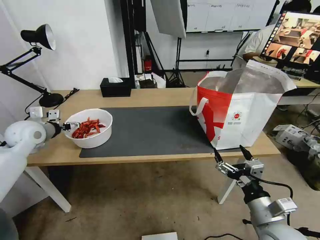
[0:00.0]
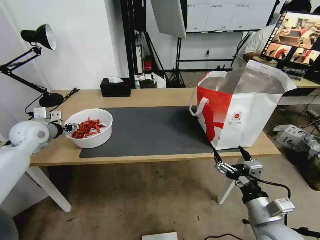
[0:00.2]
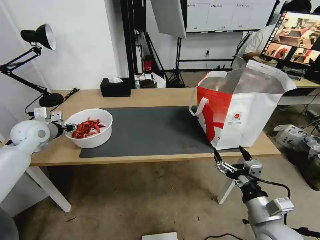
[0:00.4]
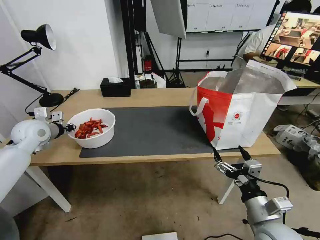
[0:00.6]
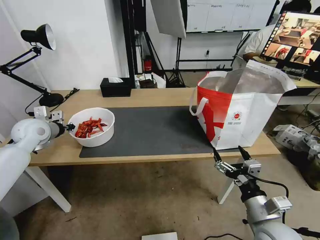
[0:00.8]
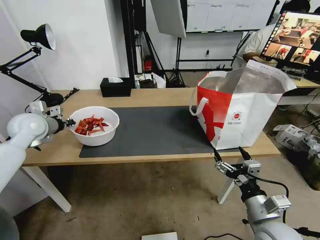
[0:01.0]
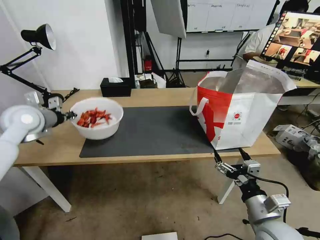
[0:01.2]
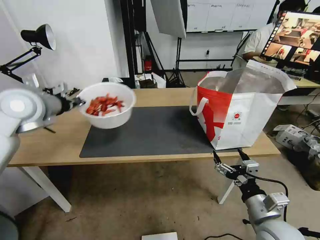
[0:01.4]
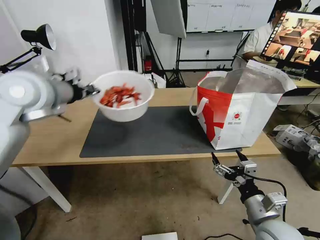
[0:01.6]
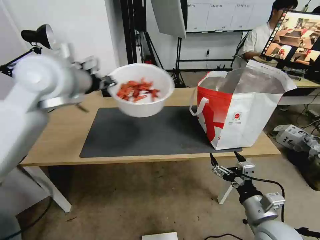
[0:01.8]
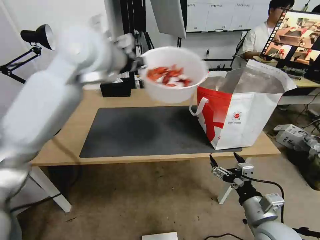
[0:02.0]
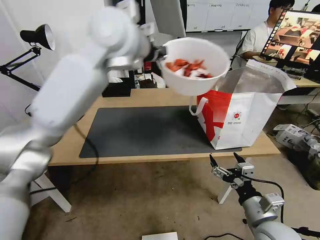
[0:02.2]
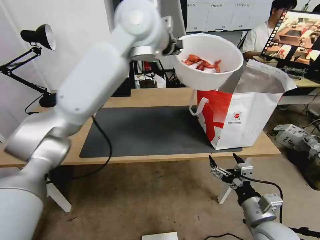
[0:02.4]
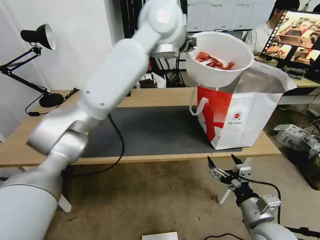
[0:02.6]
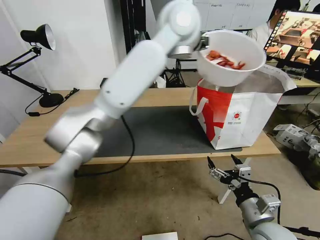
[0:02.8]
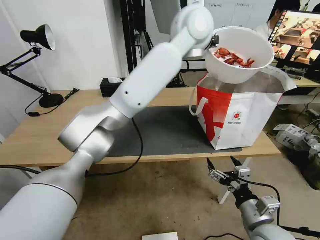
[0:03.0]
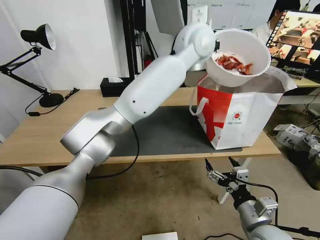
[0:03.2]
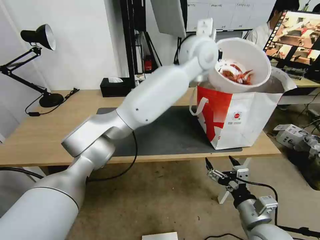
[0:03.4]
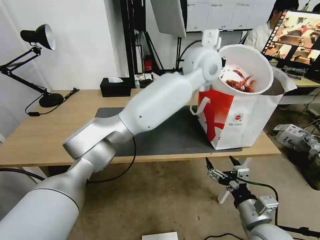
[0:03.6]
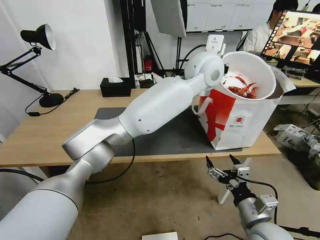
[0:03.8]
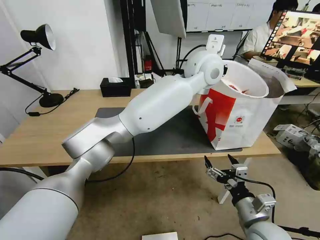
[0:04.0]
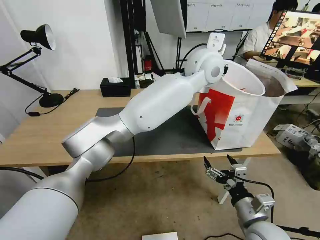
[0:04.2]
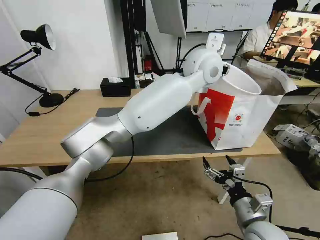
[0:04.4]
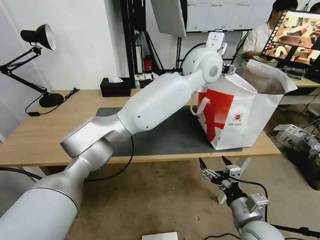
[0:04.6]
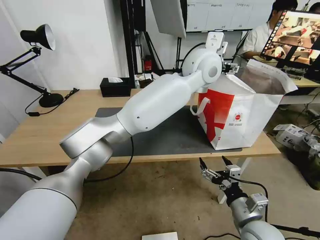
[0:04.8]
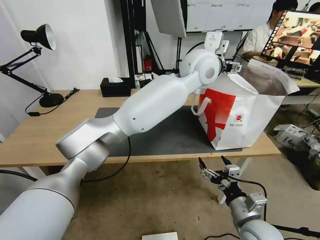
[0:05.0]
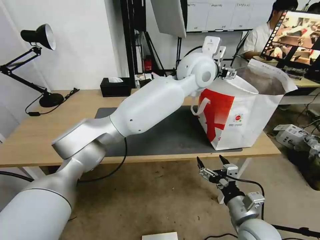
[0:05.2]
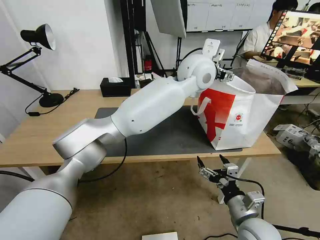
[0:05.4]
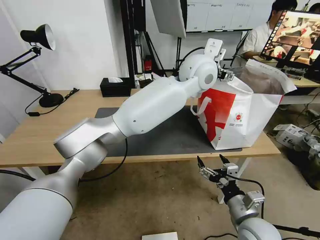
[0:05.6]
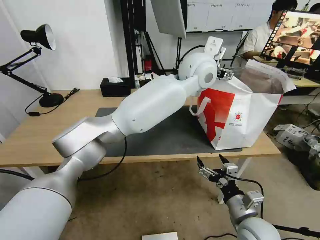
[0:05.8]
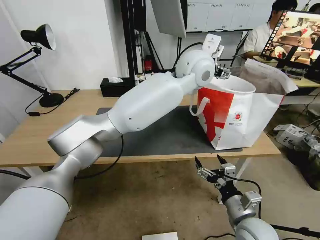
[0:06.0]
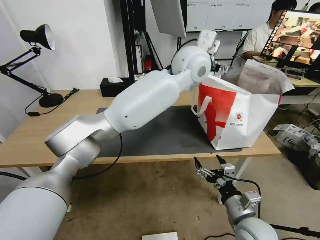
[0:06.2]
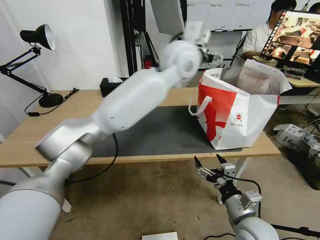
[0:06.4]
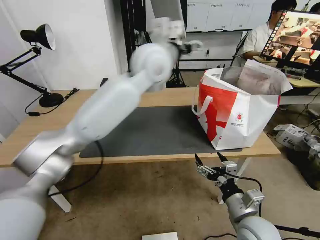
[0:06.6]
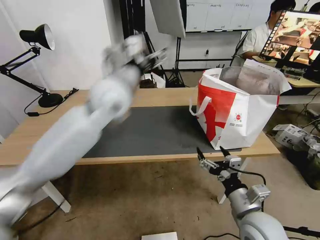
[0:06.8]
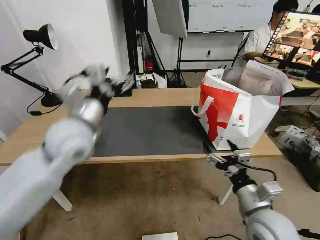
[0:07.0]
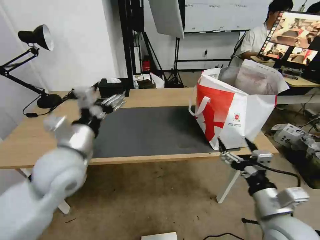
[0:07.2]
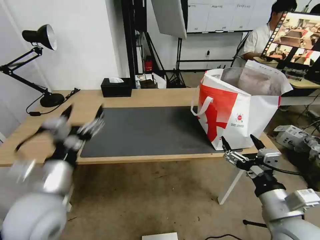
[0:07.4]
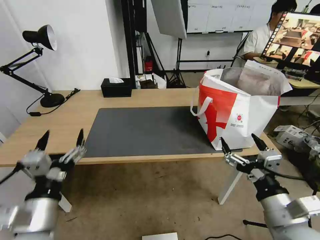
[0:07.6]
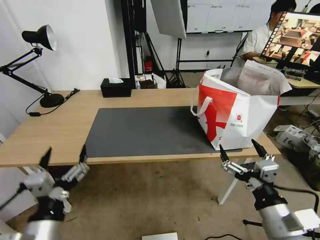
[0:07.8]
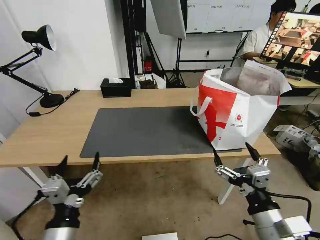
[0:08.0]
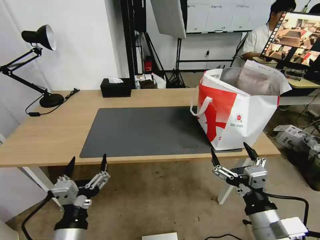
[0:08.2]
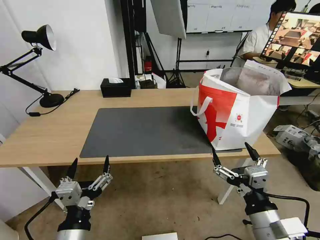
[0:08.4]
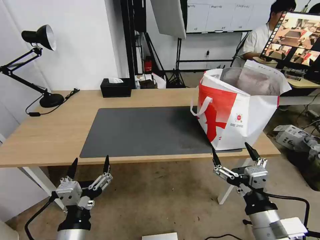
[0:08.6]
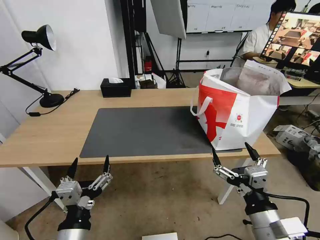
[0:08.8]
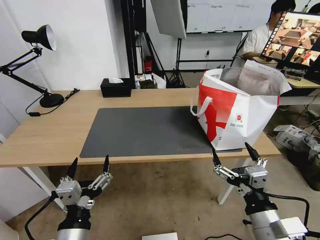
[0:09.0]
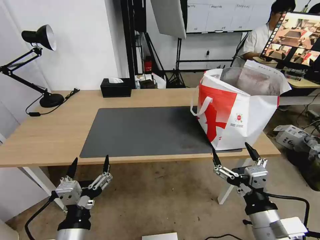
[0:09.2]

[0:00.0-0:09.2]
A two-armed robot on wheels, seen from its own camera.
Task of the whole recording: Pick up the trash from the table and place it into the takeout bag.
0:00.0 to 0:01.6: The left gripper goes about 20 cm upward and to the right, and closes up.
0:01.6 to 0:03.0: The left gripper is displaced to the right by some 35 cm.
0:03.0 to 0:04.6: The left gripper shifts some 10 cm downward, and opens its fingers.
0:04.6 to 0:06.2: There are only small adjustments of the grippers.
0:06.2 to 0:07.6: The left gripper moves backward, to the left and downward, about 50 cm, while the right gripper goes about 10 cm upward.
0:07.6 to 0:09.2: The left gripper heads to the right and backward, covering about 10 cm.

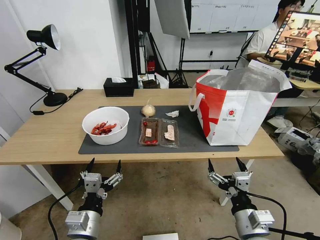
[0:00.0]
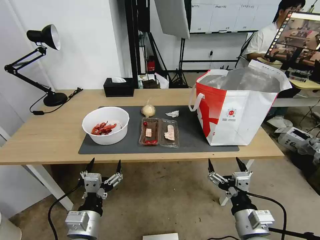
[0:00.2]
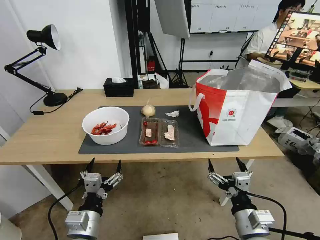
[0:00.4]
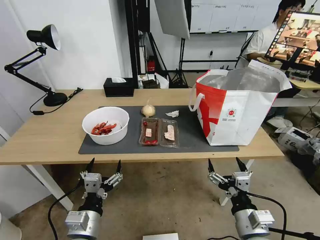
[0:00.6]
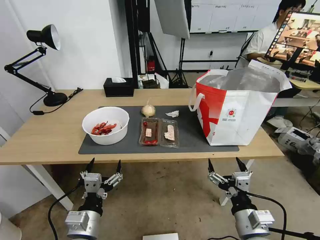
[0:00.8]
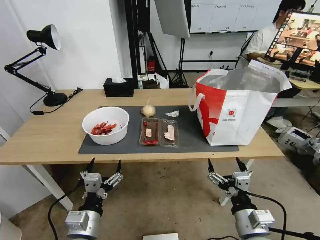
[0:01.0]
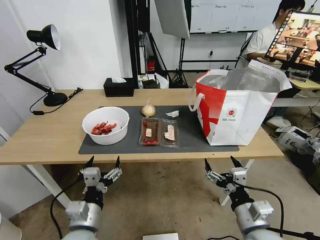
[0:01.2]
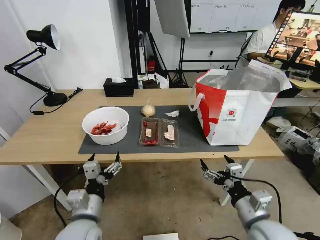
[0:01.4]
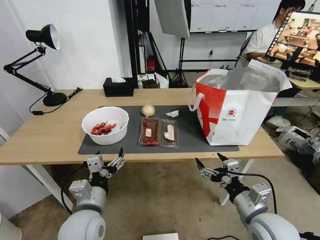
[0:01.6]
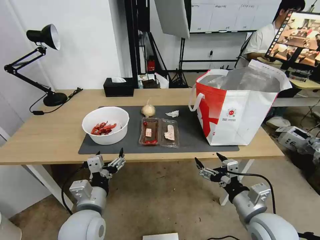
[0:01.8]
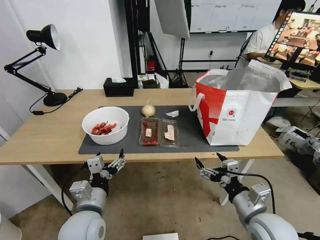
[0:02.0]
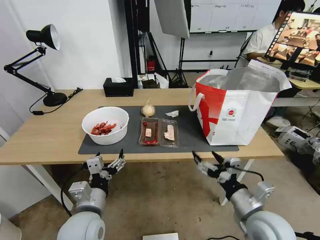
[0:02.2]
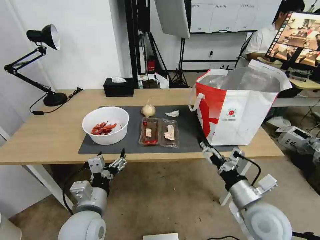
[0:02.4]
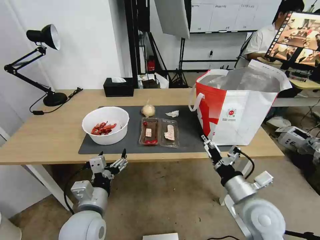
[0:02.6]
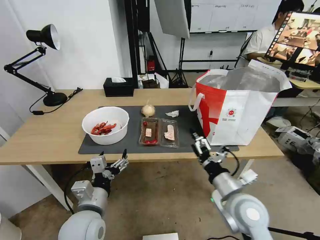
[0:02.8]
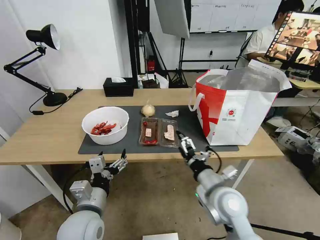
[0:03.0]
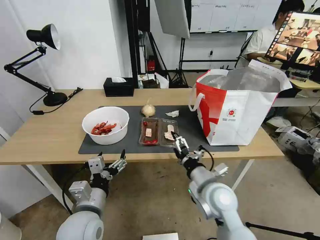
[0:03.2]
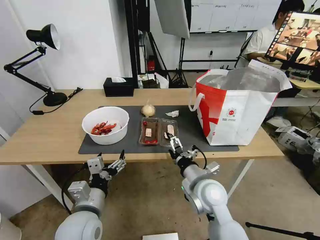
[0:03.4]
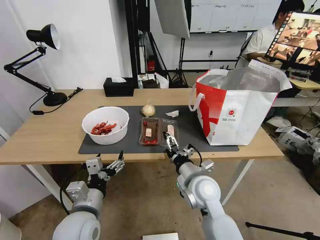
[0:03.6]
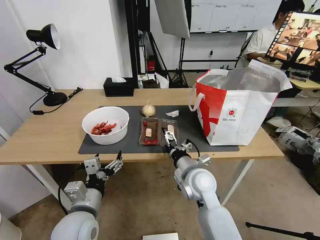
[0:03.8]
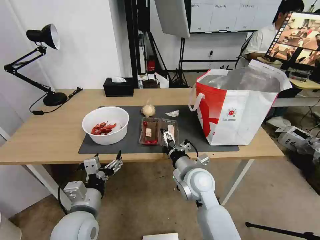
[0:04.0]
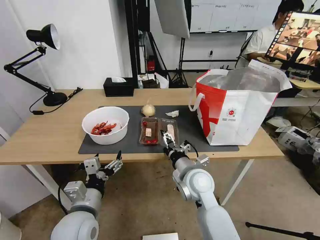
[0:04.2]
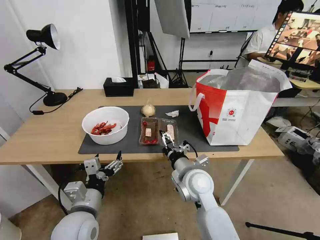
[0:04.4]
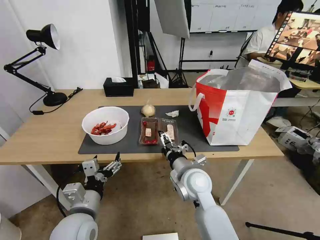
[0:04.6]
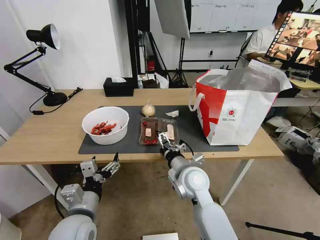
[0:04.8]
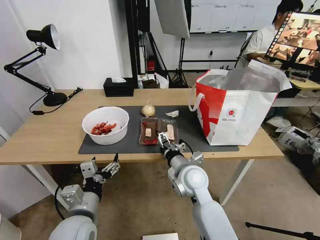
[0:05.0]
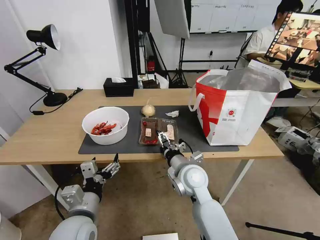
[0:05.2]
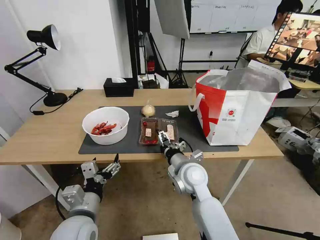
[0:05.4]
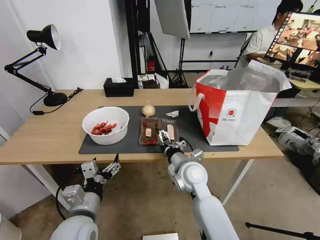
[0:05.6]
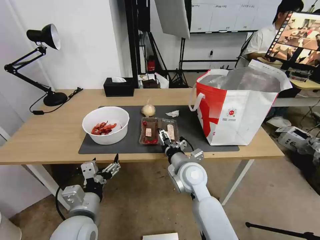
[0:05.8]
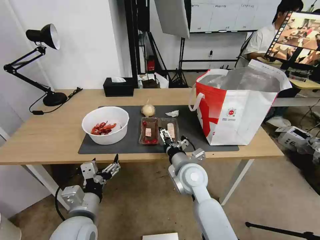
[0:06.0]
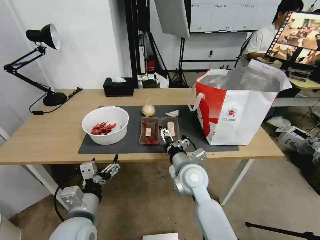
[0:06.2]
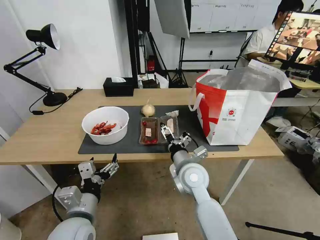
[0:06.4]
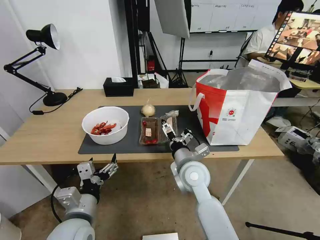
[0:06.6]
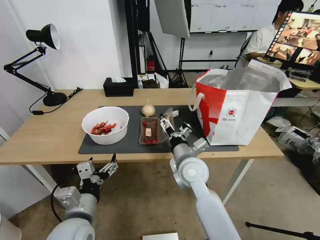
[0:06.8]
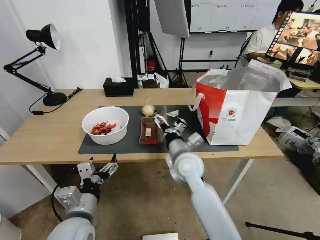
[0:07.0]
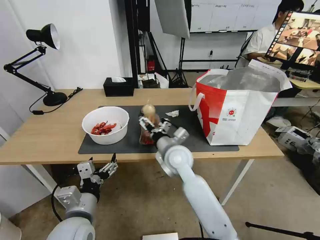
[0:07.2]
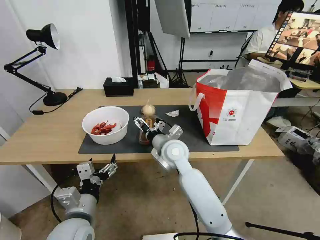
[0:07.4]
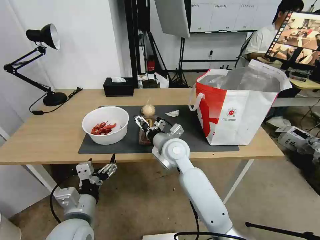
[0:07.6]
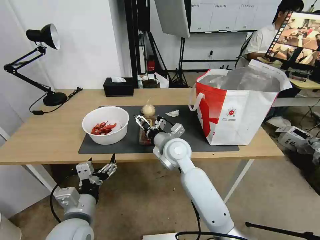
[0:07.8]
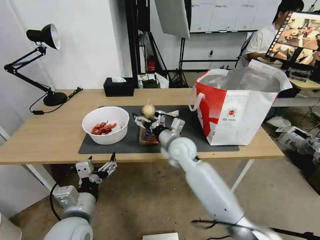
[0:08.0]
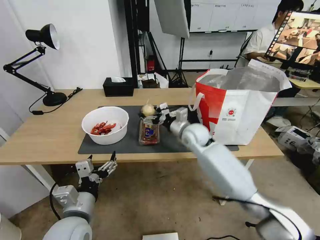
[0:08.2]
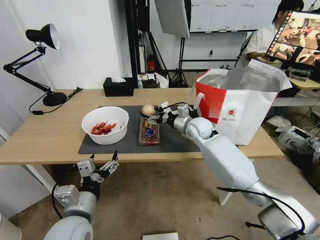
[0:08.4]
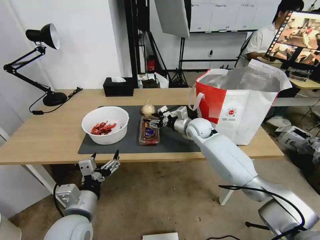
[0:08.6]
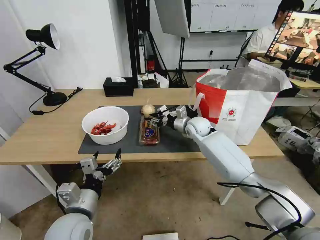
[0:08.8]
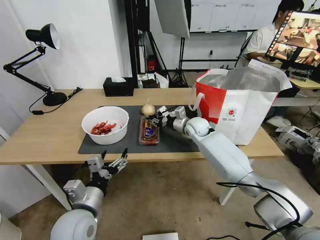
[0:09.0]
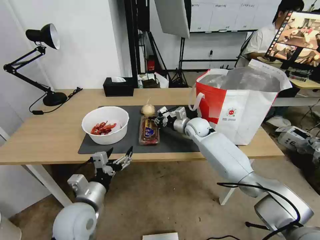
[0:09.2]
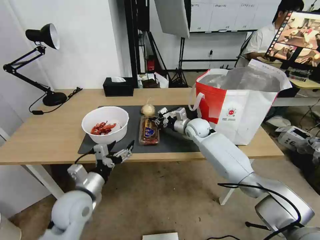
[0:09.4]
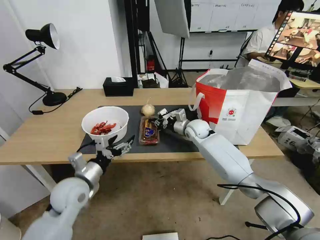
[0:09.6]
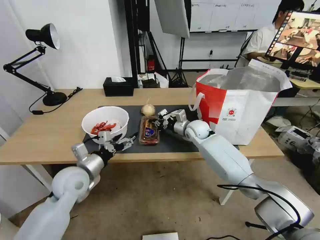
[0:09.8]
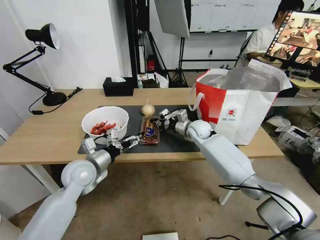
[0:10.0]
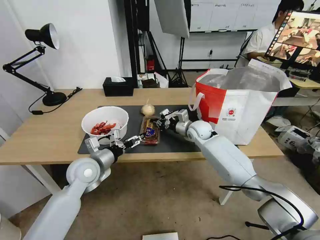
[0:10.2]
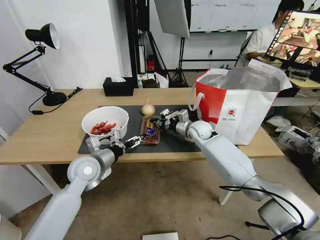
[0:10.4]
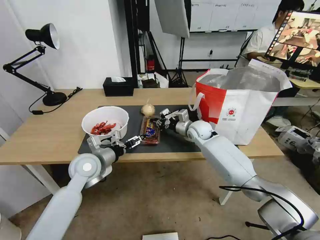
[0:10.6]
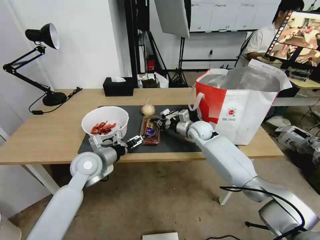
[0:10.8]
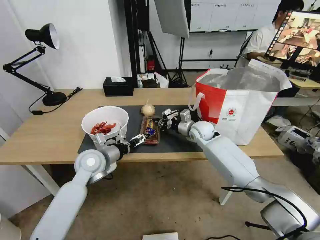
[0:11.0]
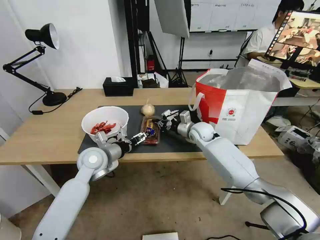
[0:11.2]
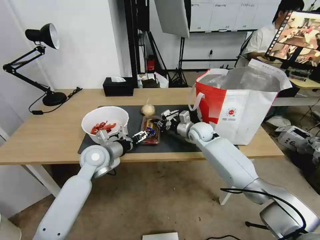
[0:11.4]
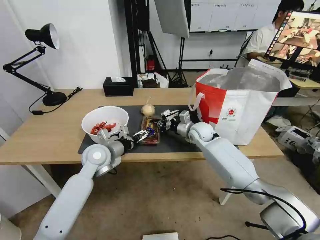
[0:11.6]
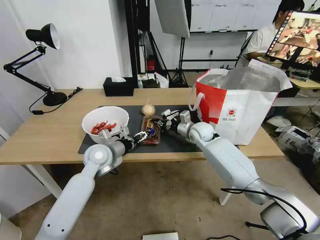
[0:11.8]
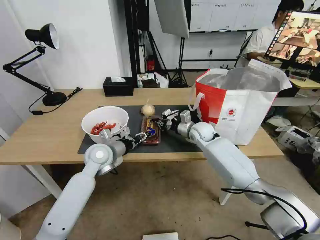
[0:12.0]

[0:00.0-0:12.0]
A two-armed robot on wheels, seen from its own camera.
Task of the whole recording: Pick up the trash from the table and place it into the takeout bag.
0:01.6 to 0:03.0: The right gripper moves to the left and forward, approximately 10 cm.
0:03.0 to 0:04.4: The right gripper shifts about 10 cm to the left and forward.
0:04.4 to 0:06.0: The grippers make only small movements.
0:06.0 to 0:07.6: The right gripper is displaced forward and to the left by about 10 cm.
0:07.6 to 0:09.0: The right gripper moves forward and to the right, some 20 cm, and closes its fingers.
0:09.0 to 0:10.4: The left gripper shifts some 15 cm forward.
0:10.4 to 0:12.0: The left gripper is displaced forward by some 5 cm, and closes up.

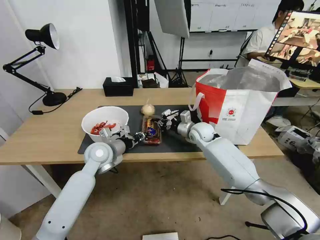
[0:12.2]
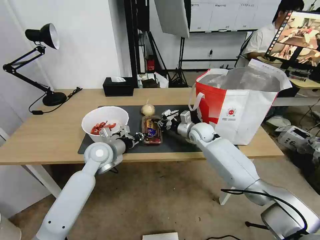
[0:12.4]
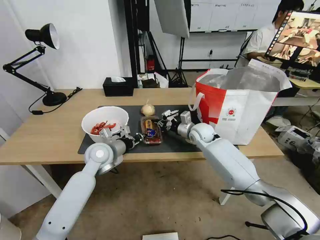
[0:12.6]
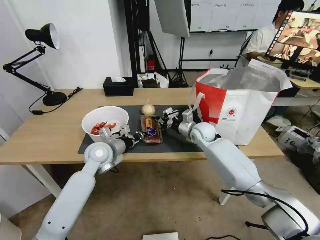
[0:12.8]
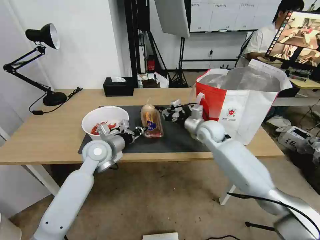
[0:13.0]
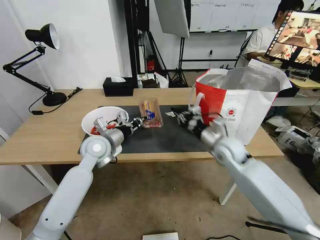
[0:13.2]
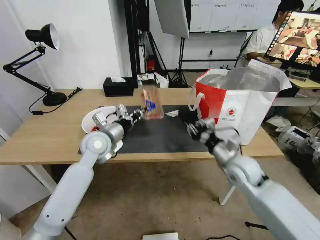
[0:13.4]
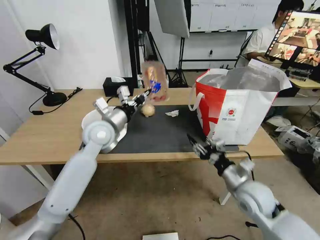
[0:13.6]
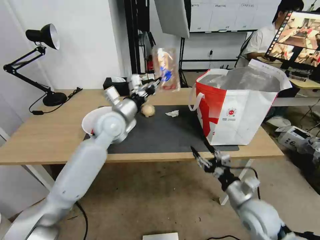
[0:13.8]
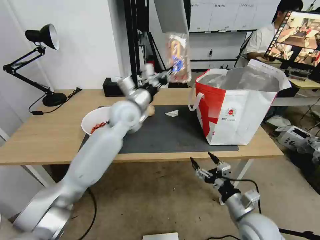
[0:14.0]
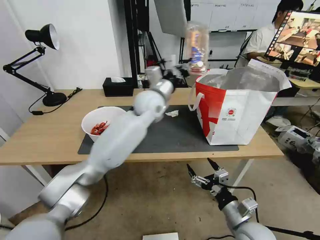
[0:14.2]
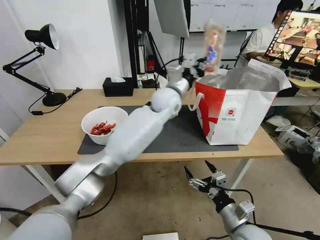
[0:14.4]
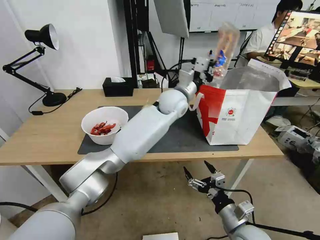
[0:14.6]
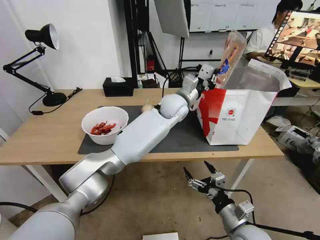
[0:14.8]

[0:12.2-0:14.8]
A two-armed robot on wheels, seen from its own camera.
Task of the whole recording: Pick up the trash from the table and place it into the takeout bag.
0:12.2 to 0:13.4: The right gripper is displaced backward and to the right by roughly 20 cm. The left gripper moves about 5 cm.
0:13.4 to 0:14.8: The left gripper shifts approximately 30 cm to the right and forward. The right gripper is displaced backward and downward by some 20 cm, and opens.
